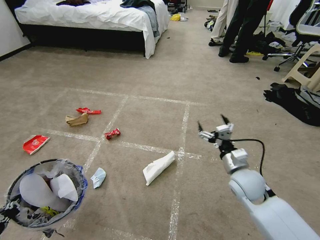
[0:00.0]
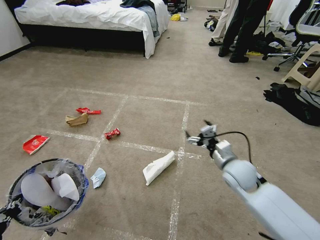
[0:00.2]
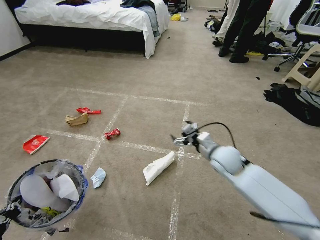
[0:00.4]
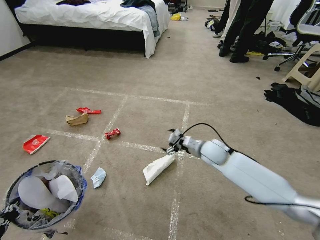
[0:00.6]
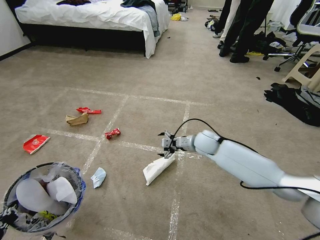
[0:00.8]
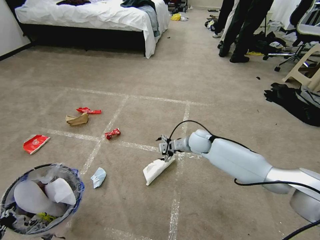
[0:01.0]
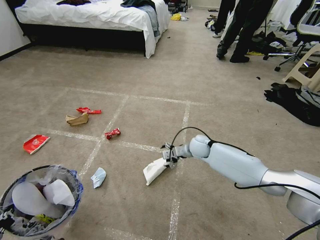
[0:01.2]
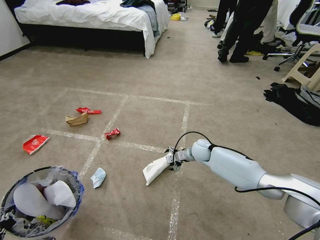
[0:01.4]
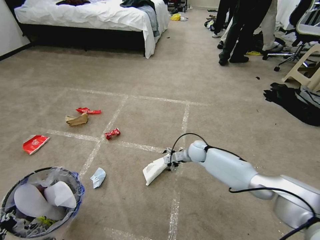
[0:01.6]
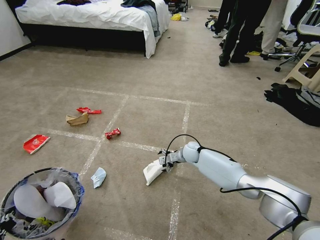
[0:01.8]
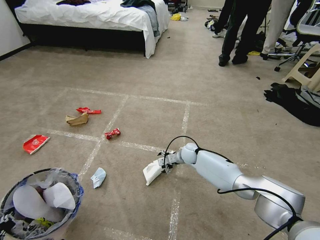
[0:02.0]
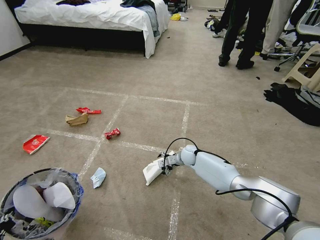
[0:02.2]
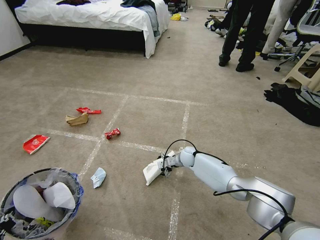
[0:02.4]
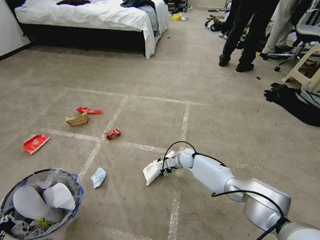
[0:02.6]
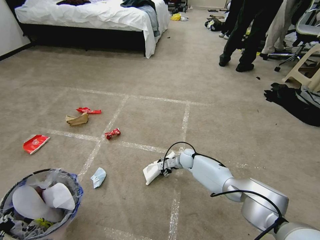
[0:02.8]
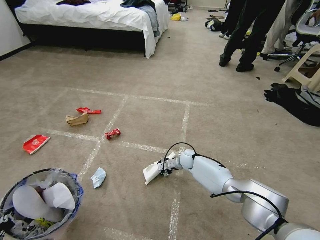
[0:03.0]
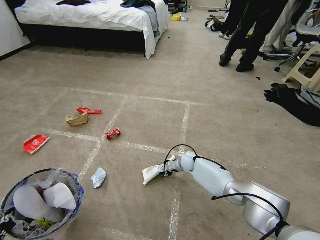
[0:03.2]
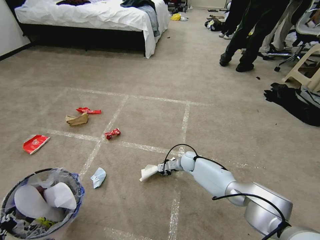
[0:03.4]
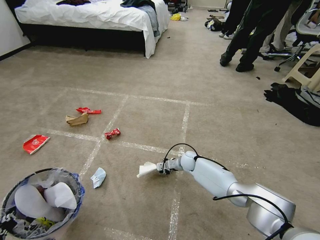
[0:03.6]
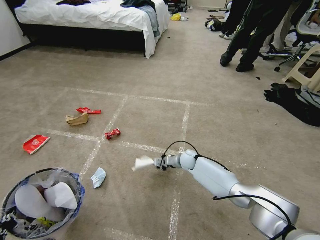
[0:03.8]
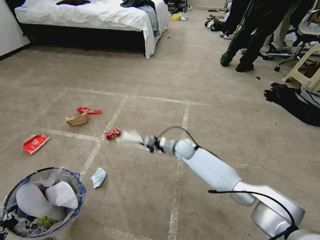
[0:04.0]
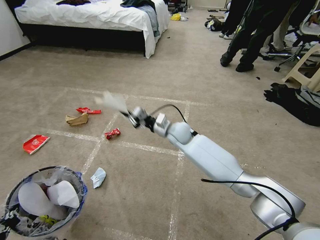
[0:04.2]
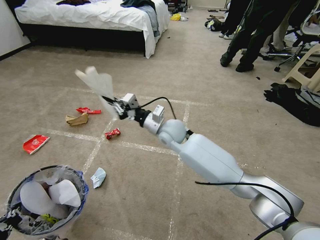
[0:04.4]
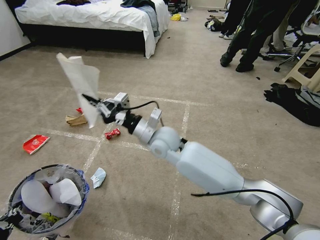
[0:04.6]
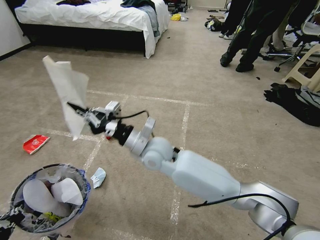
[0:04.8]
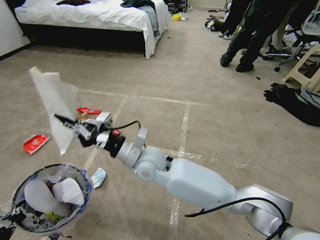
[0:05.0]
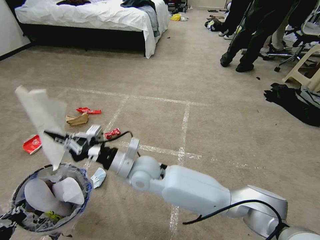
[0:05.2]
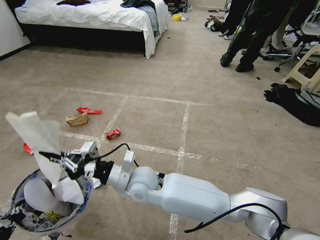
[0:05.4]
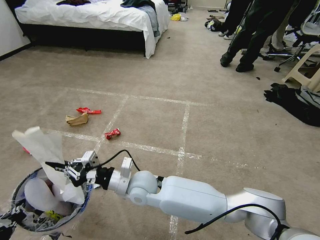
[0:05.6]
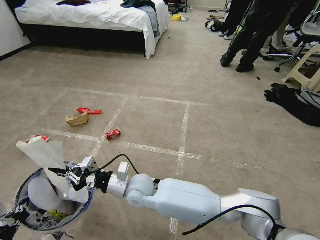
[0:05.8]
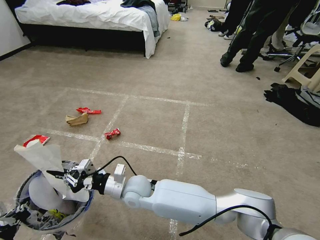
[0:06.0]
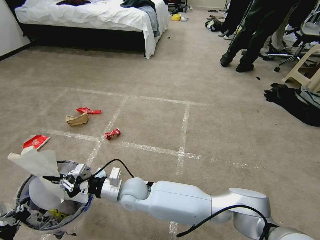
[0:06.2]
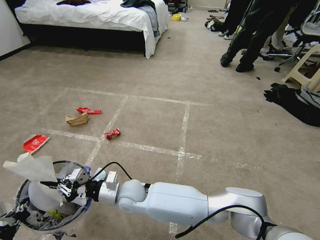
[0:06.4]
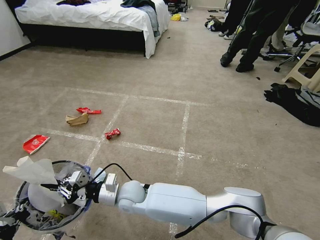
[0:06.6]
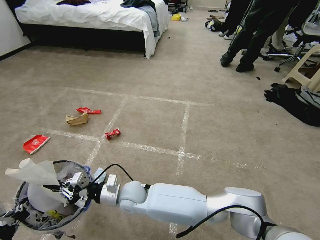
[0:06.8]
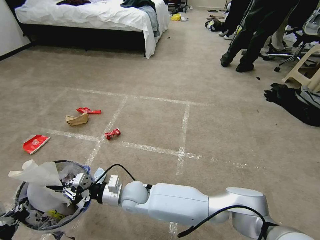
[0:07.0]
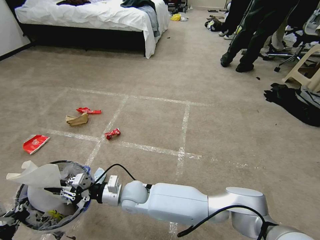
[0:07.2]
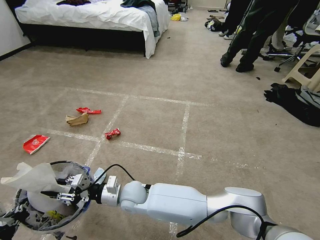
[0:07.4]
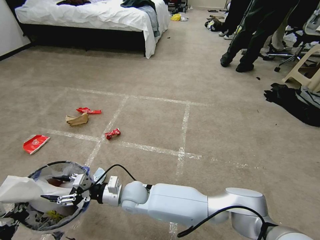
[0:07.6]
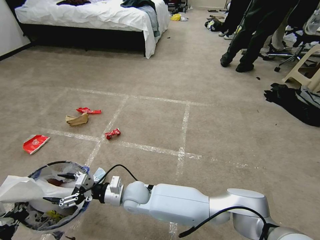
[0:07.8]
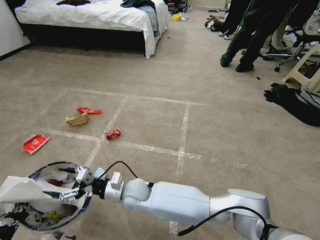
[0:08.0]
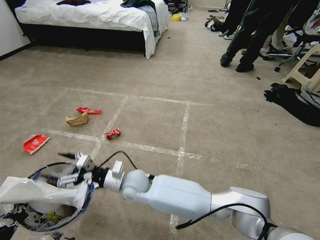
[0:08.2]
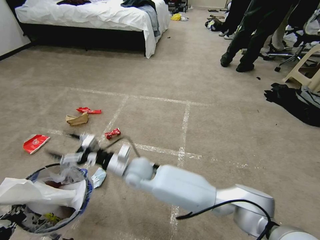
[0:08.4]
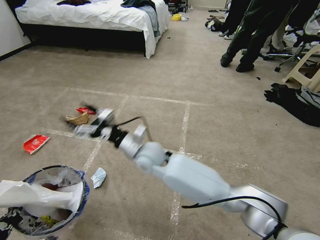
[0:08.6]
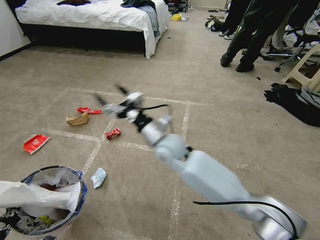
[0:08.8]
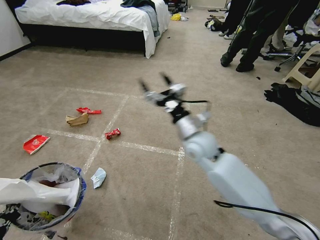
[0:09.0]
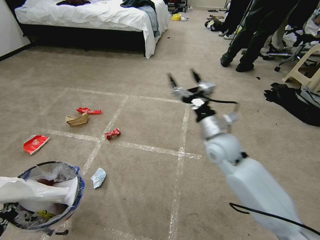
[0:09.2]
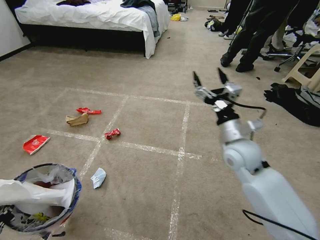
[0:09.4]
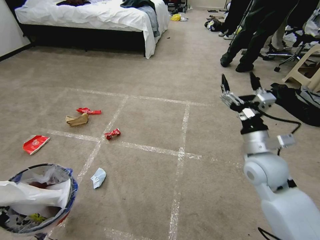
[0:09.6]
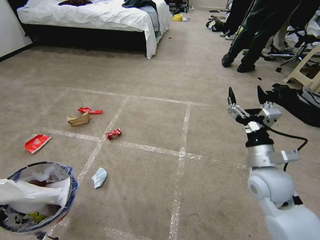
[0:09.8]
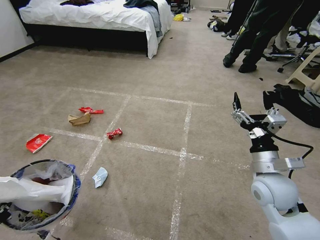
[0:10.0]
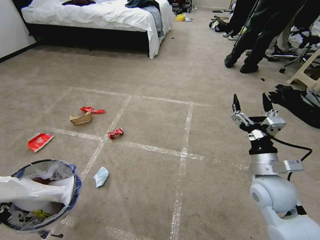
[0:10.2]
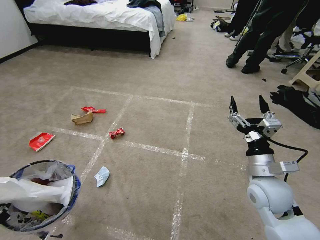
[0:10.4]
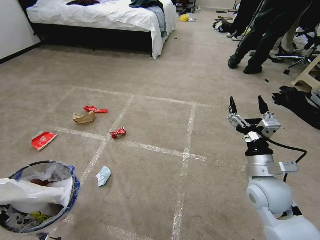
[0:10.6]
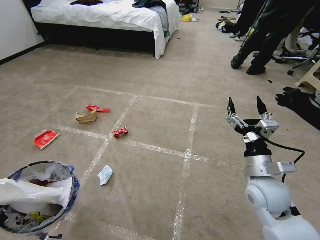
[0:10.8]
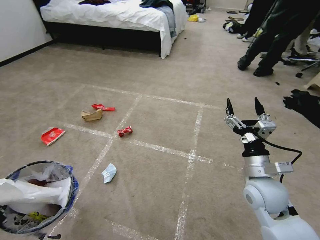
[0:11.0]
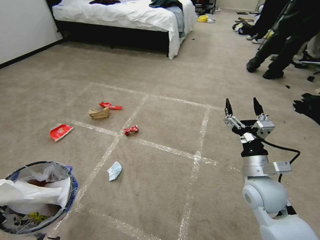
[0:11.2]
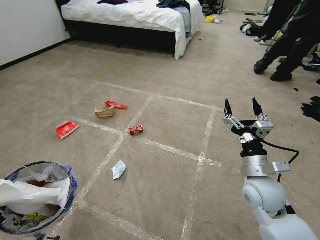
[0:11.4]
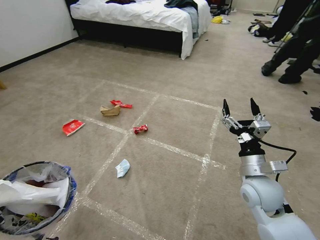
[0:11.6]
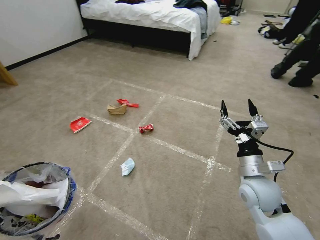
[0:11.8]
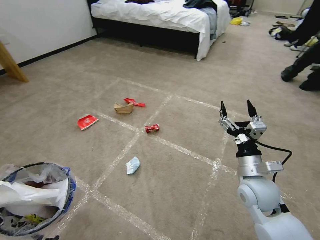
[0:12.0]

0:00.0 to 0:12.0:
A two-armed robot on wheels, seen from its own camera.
Task of the whole recording: Pick up the trash bin and place the garbage on the floor into it.
0:00.0 to 0:01.6: The right gripper travels forward and downward by about 25 cm.
0:01.6 to 0:03.0: The right gripper shifts approximately 10 cm downward.
0:03.0 to 0:04.4: The right gripper shifts approximately 30 cm upward and to the left, and closes.
0:04.4 to 0:06.0: The right gripper goes about 25 cm backward, downward and to the left.
0:06.0 to 0:07.6: The right gripper opens its fingers.
0:07.6 to 0:09.0: The right gripper travels to the right and upward by roughly 30 cm, and opens.
0:09.0 to 0:10.4: The right gripper goes some 20 cm to the right and backward.

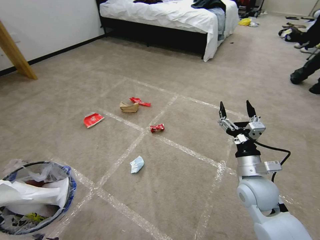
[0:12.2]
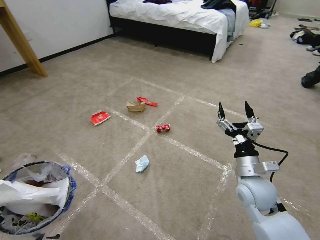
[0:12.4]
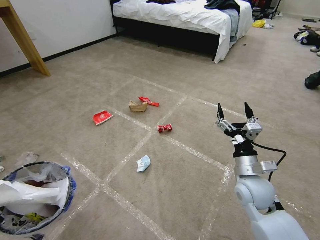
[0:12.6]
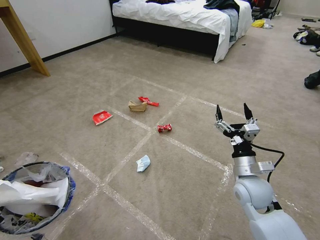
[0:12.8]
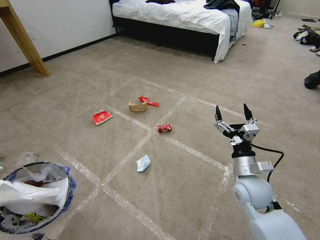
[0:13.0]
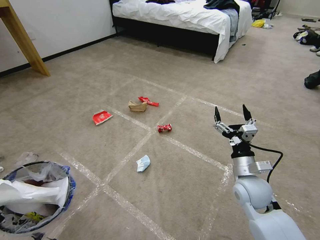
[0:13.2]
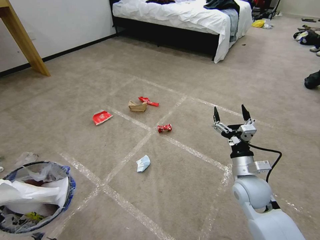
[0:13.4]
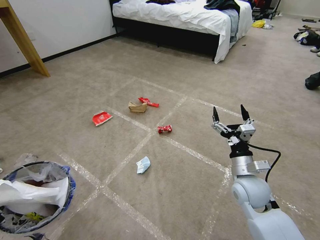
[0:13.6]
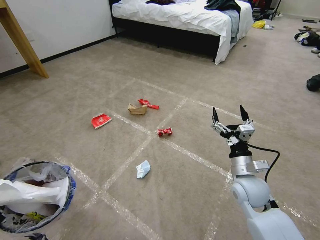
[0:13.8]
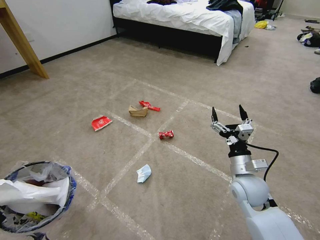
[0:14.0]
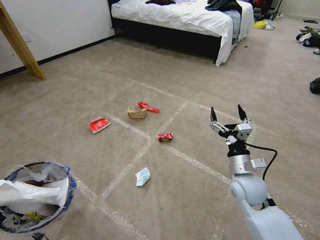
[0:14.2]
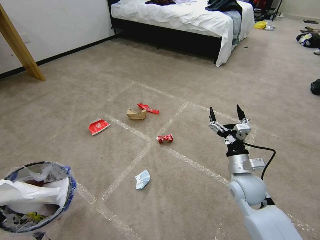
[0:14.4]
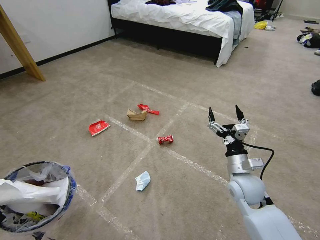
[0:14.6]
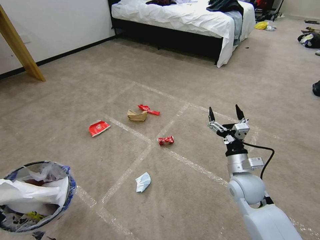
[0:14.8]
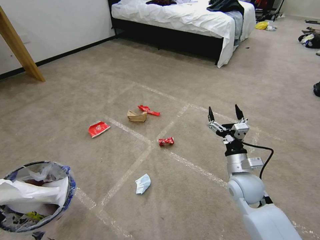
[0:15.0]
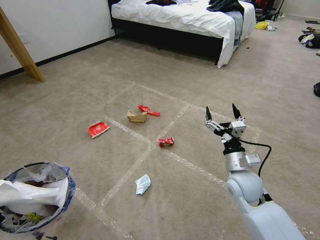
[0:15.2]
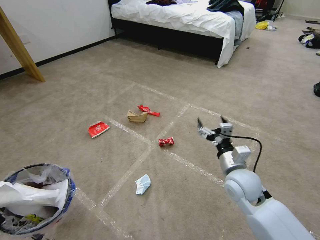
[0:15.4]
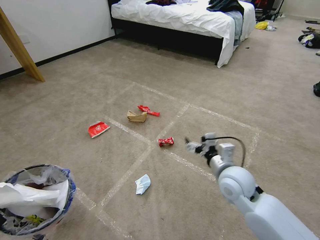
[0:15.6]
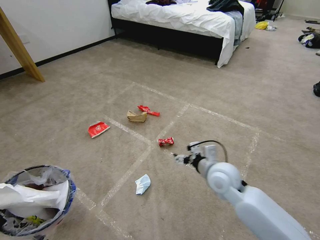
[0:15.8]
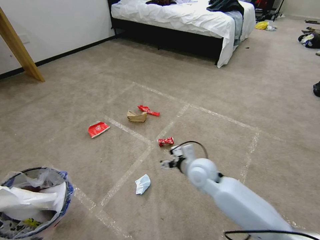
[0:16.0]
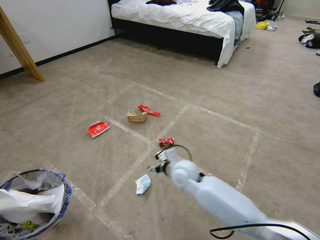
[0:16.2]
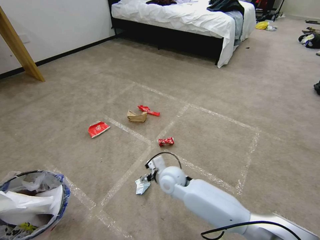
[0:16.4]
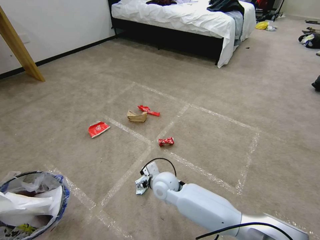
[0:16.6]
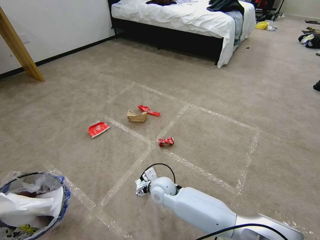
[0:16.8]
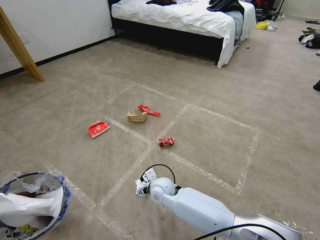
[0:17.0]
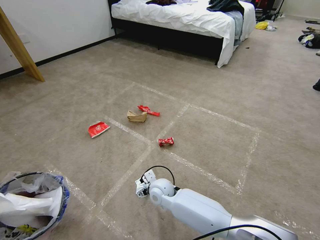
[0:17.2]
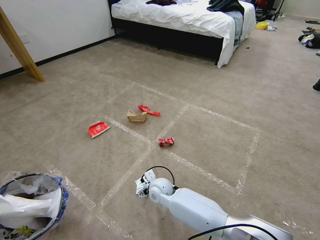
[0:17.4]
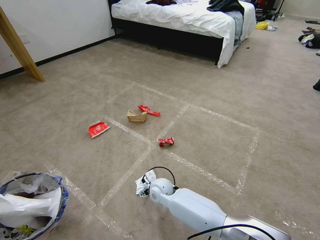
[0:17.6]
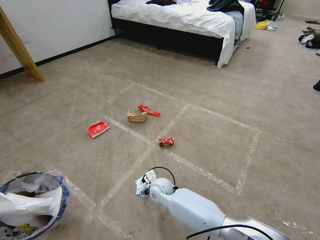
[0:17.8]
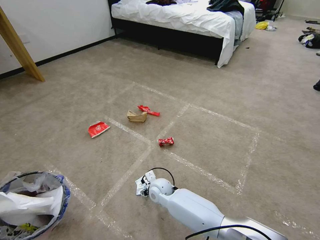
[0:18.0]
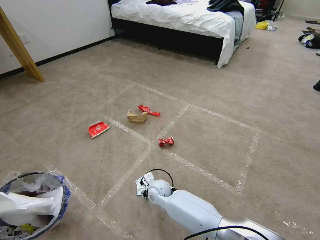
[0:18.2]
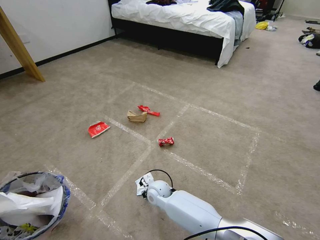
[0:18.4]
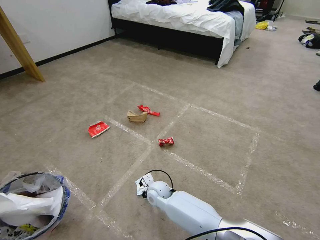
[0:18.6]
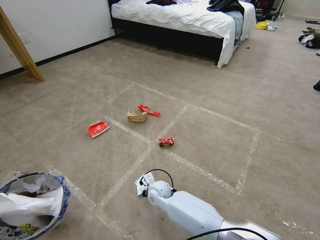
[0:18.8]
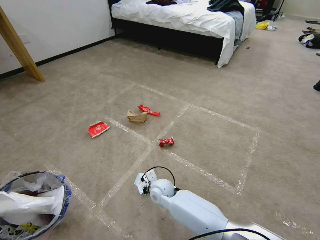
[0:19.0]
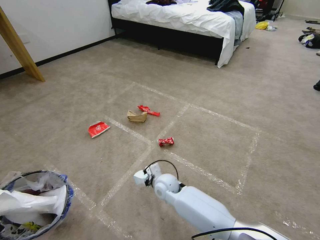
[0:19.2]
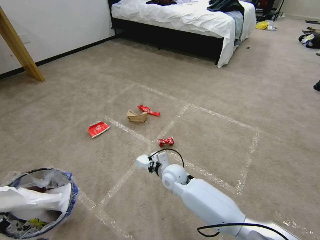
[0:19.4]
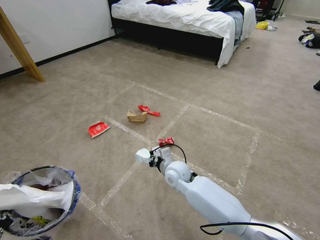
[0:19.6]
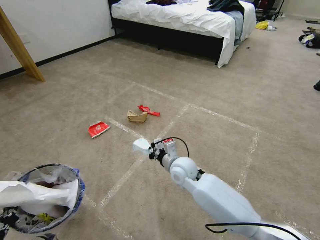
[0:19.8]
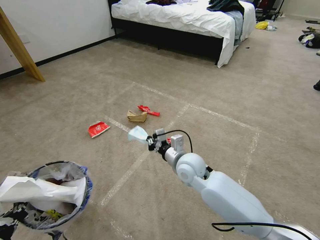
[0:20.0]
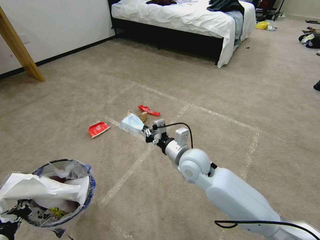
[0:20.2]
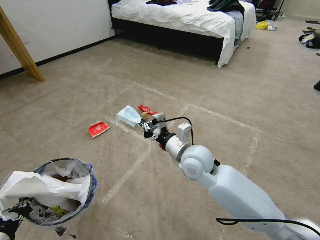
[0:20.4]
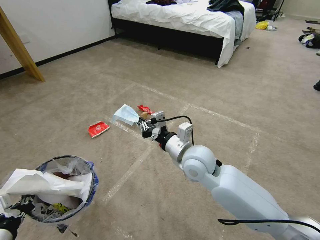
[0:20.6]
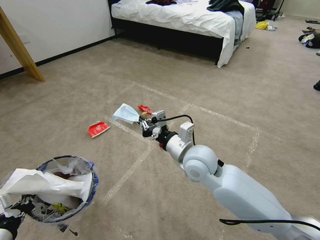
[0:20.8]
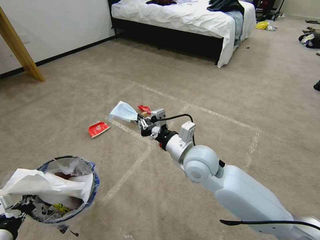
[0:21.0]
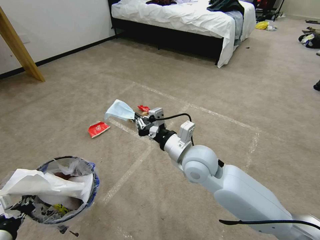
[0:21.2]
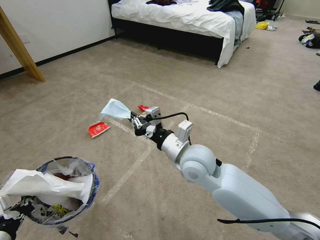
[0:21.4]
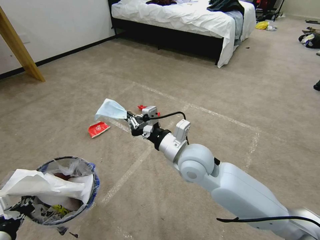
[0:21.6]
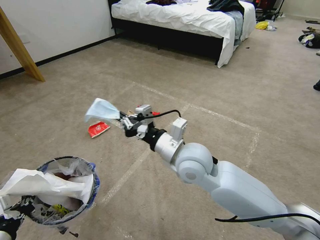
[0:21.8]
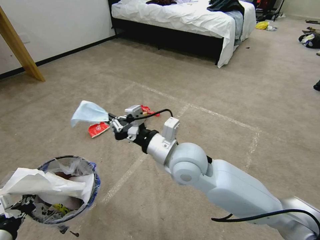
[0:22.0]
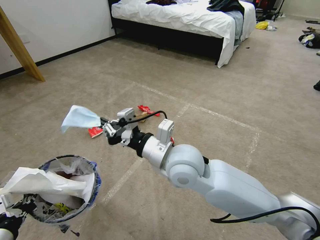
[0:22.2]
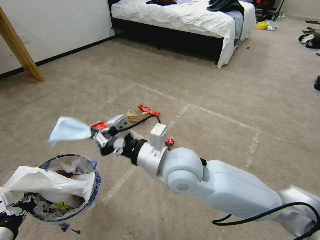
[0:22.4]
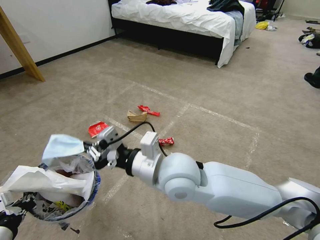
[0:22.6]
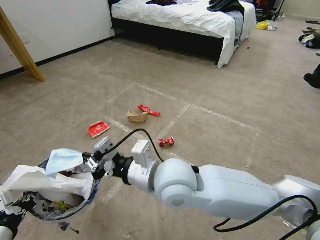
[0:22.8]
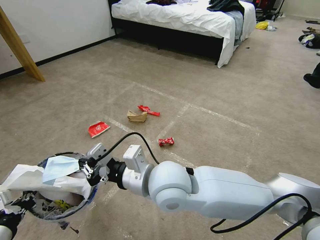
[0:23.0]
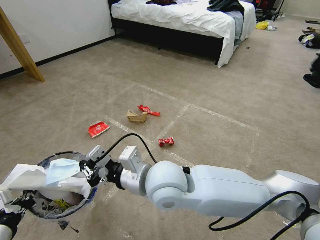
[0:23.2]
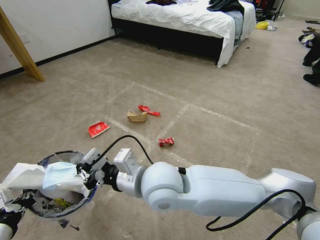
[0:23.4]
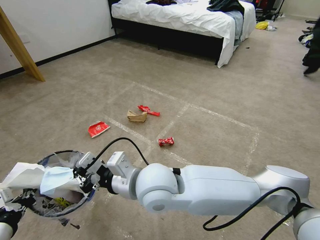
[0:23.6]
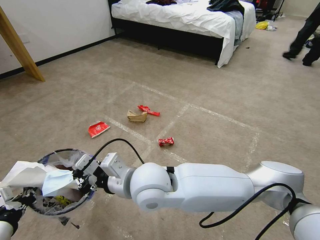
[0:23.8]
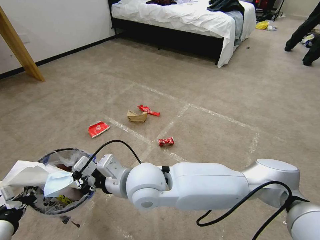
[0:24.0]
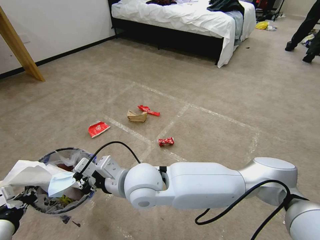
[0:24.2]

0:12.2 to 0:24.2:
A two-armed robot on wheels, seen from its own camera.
Task of the whole recording: Pick up the trash bin and place the garbage on the floor into it.
0:13.8 to 0:15.2: The grippers stay close to where they were, moving slightly.
0:15.2 to 0:16.6: The right gripper goes about 25 cm to the left.
0:16.6 to 0:18.2: The right gripper is displaced downward by approximately 10 cm, and closes up.
0:18.2 to 0:19.8: The right gripper travels upward and to the right by roughly 15 cm, and closes up.
0:19.8 to 0:21.2: The right gripper heads upward, covering some 10 cm.
0:21.2 to 0:22.6: The right gripper moves to the left and backward, approximately 10 cm.
0:22.6 to 0:24.2: The right gripper heads to the left, covering roughly 10 cm.
